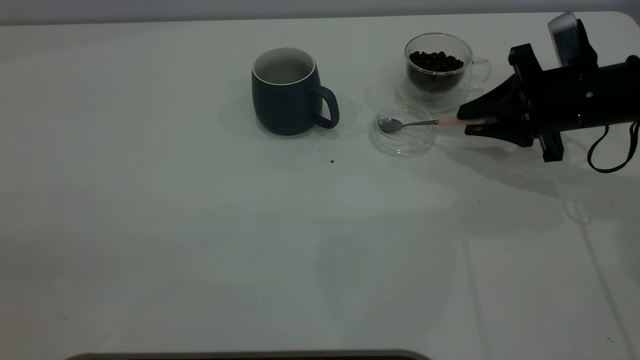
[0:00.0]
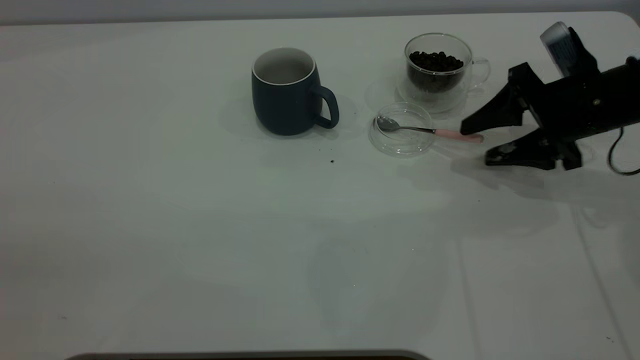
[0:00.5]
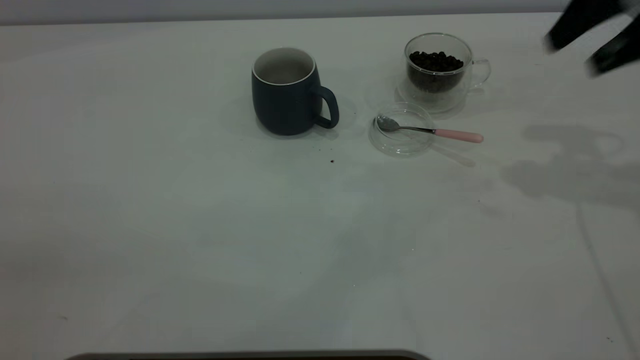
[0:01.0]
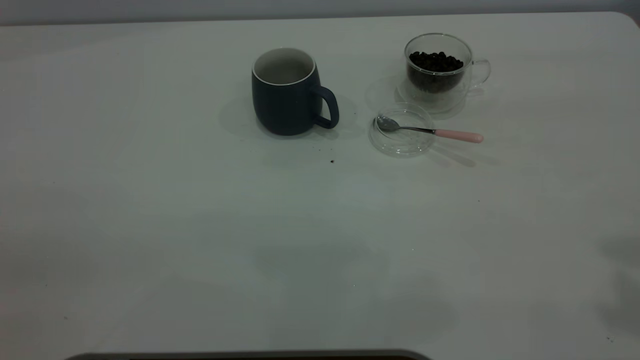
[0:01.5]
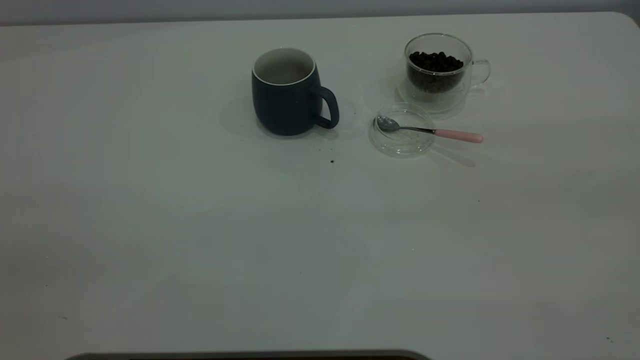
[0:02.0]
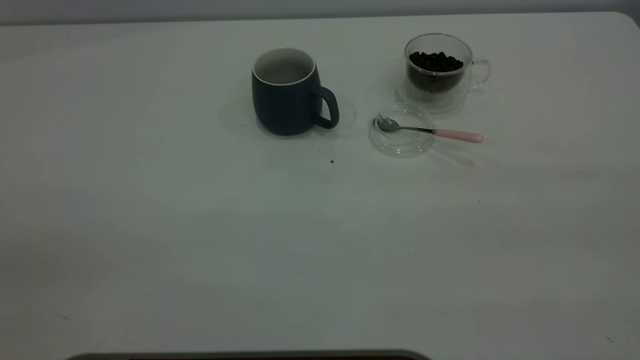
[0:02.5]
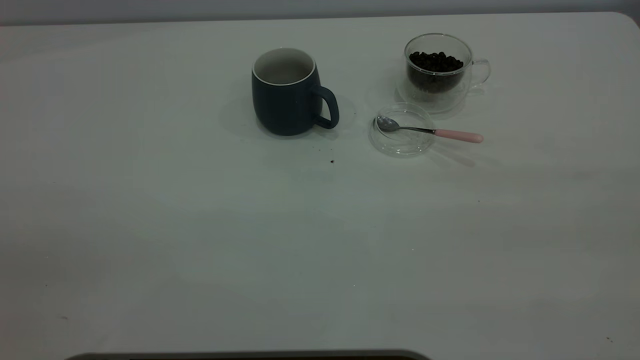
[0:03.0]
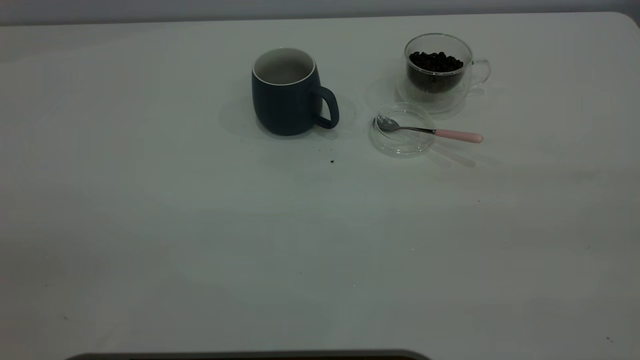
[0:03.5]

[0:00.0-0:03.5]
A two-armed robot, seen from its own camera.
Task of the whole recording: the left gripper place the grey cup in the center of the table, the right gripper take the pink spoon from the cup lid and scoop out the coffee beans from the coffee cup and put them into the grey cup, the right gripper put the spoon back into the cup lid.
0:00.0 to 0:02.0: The right gripper moves backward and upward, some 40 cm, and opens.

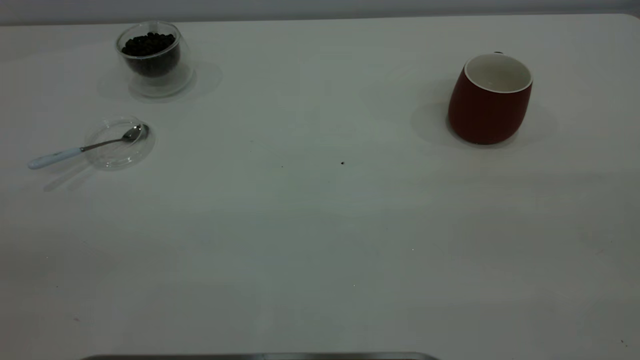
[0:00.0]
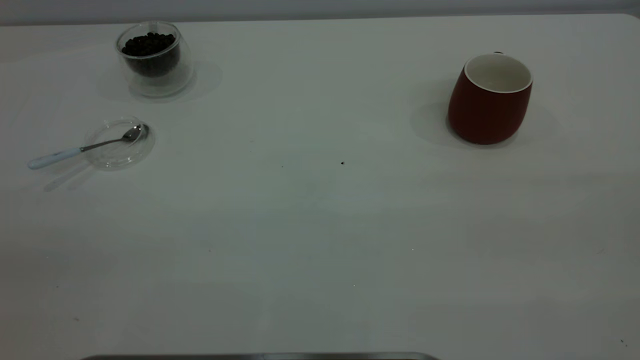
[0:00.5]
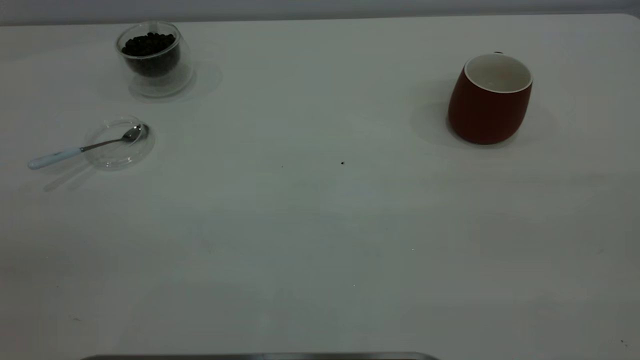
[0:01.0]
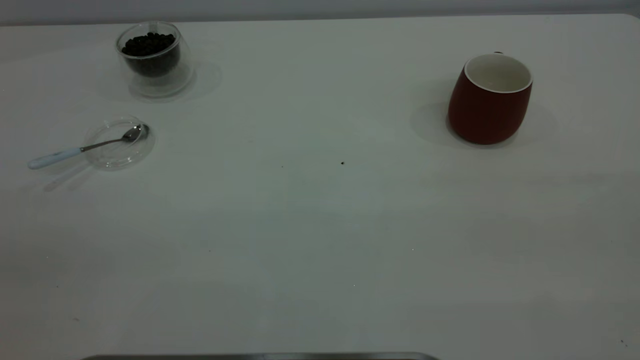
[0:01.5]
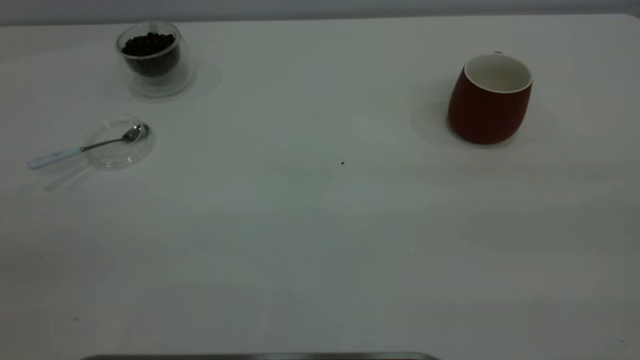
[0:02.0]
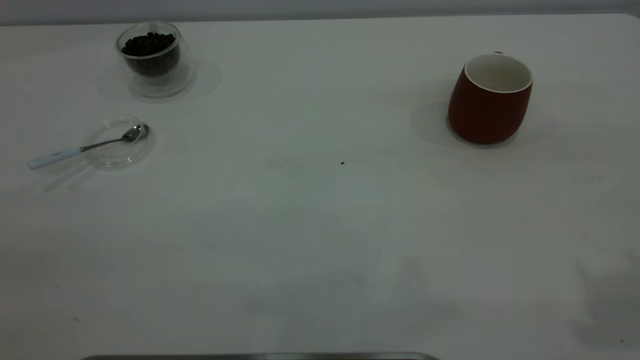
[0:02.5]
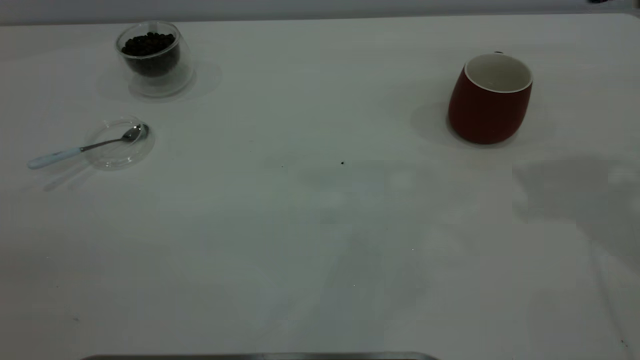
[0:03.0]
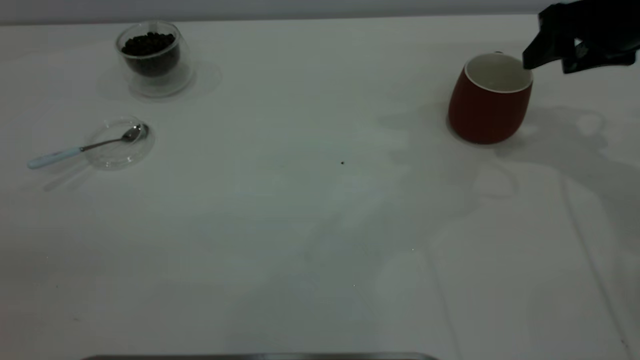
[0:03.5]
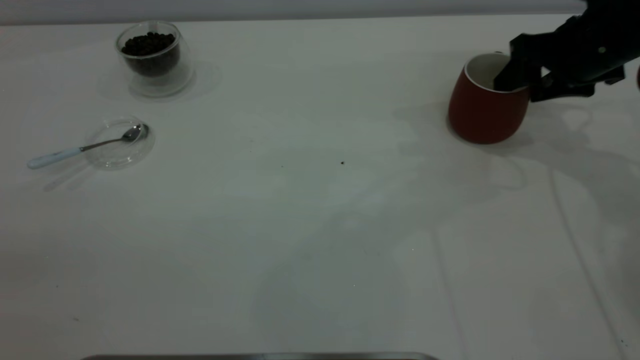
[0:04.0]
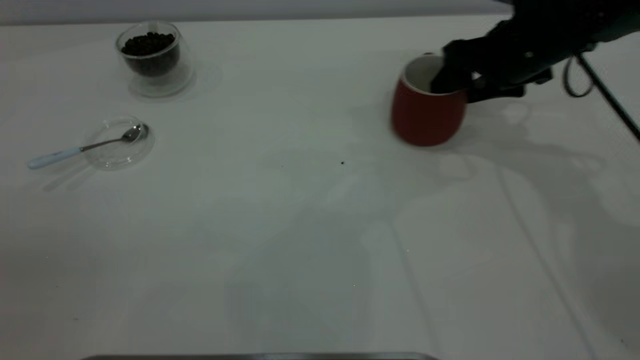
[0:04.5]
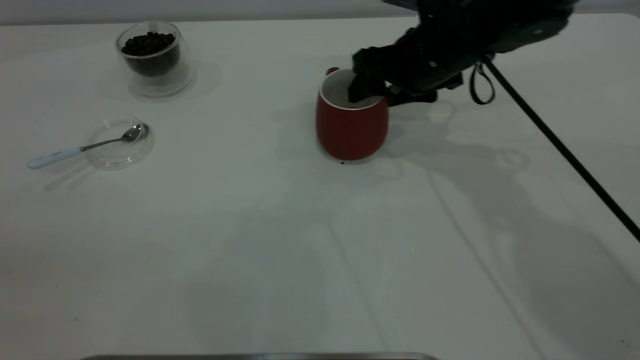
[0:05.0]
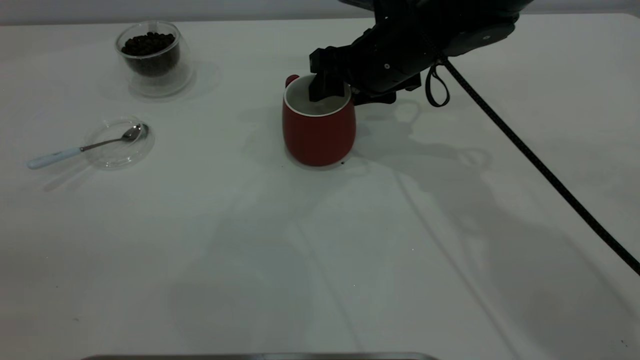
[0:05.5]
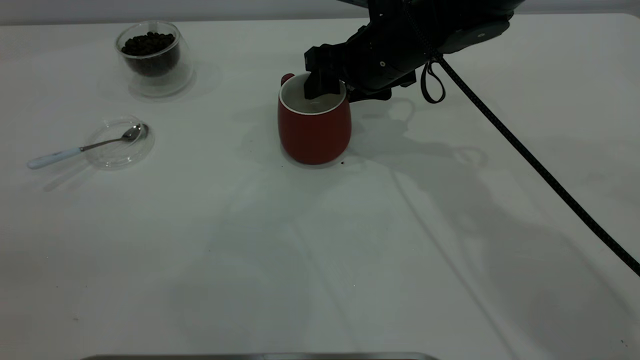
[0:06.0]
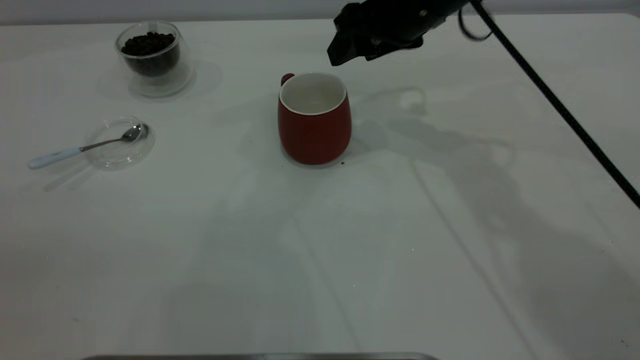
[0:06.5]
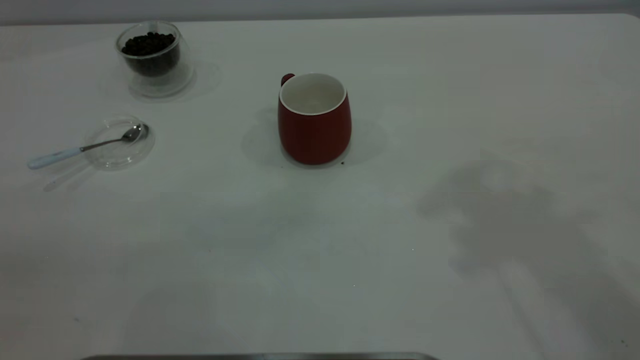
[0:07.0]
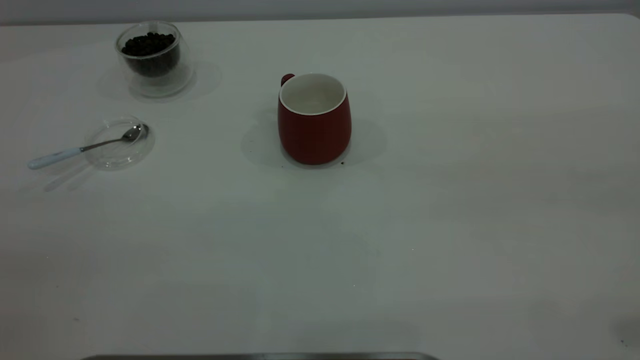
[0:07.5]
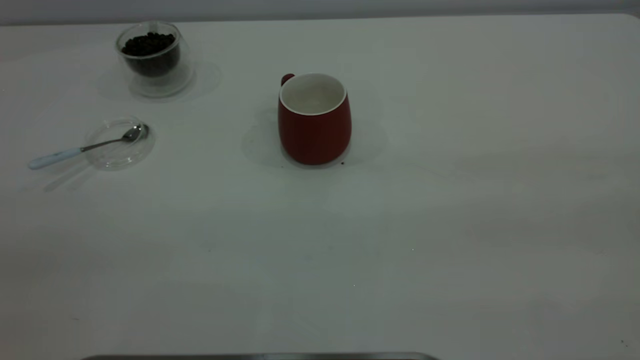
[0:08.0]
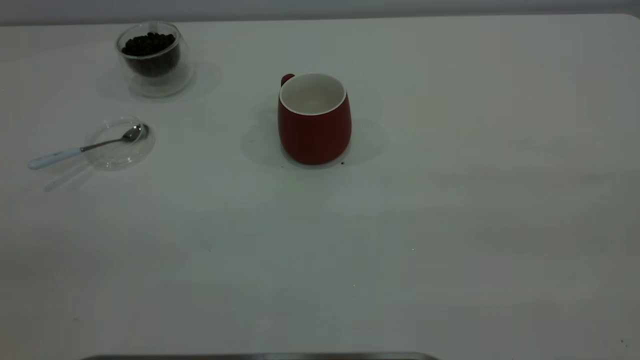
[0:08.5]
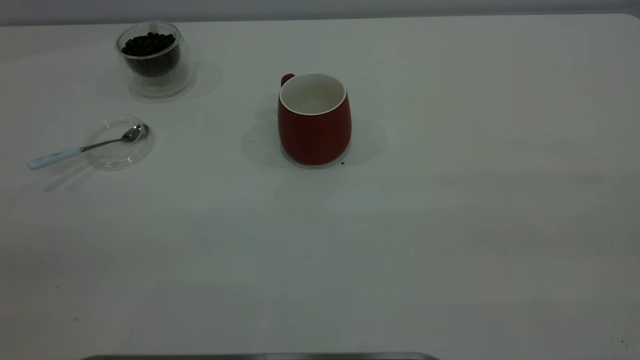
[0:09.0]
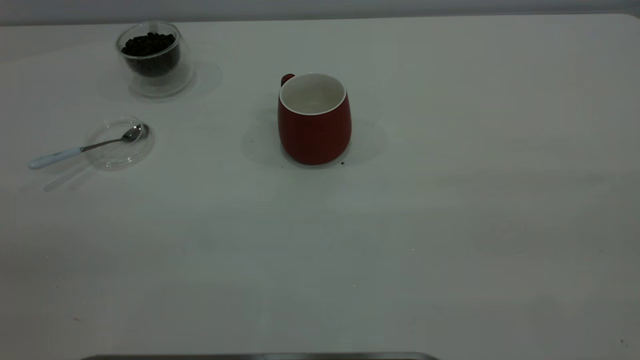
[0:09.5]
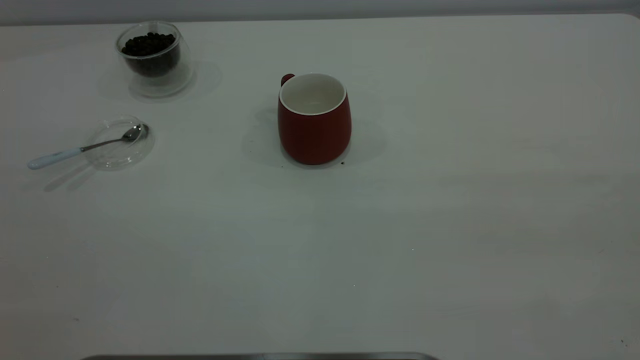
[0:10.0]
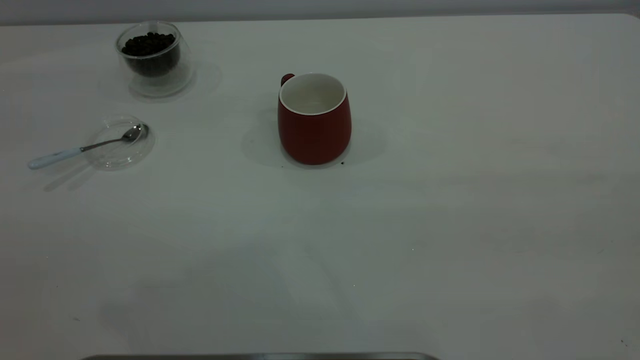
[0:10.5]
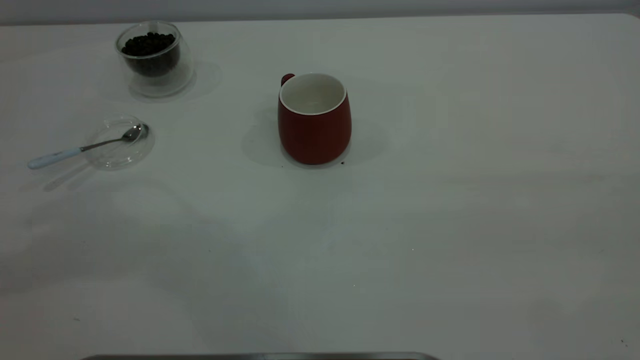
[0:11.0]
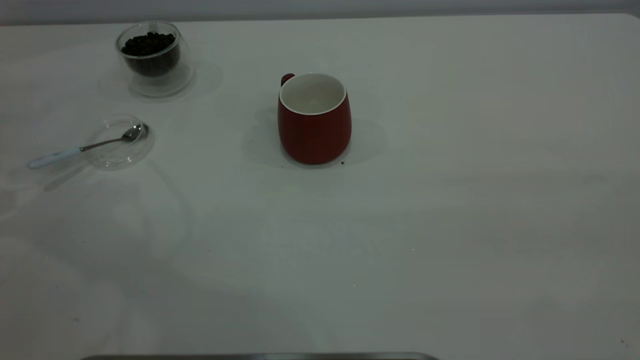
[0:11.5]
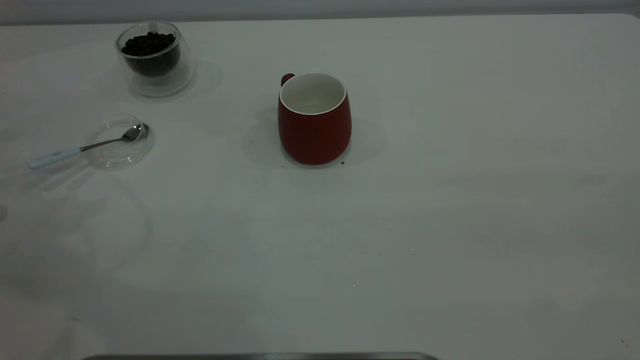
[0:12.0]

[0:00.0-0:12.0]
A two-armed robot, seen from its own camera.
Task of the whole recording: the right gripper place the red cup in the center of the table, the left gripper take the blue spoon from the cup lid and scoop out the coffee beans from the coffee cup and put them into the red cup, the left gripper put the spoon back into the cup lid.
Step, 0:00.0 to 0:06.0: Move the cup to the center of view.
0:02.0 to 0:04.0: The right gripper goes about 50 cm forward and downward.
0:04.0 to 0:06.0: The right gripper heads to the left, covering about 20 cm.
0:06.0 to 0:08.0: The right gripper moves backward, to the right and upward, some 50 cm.

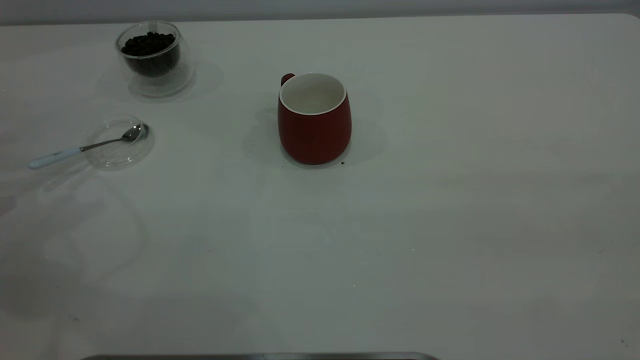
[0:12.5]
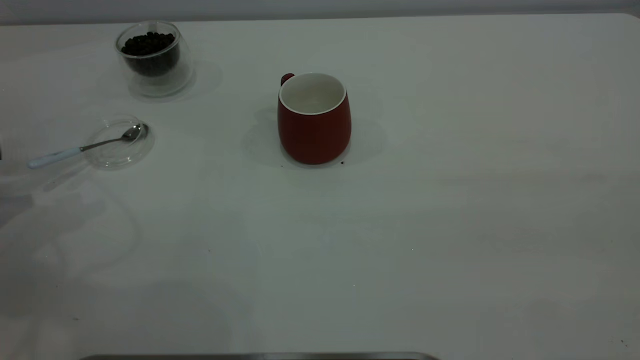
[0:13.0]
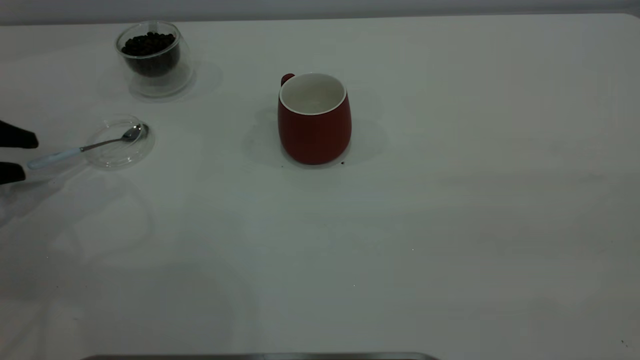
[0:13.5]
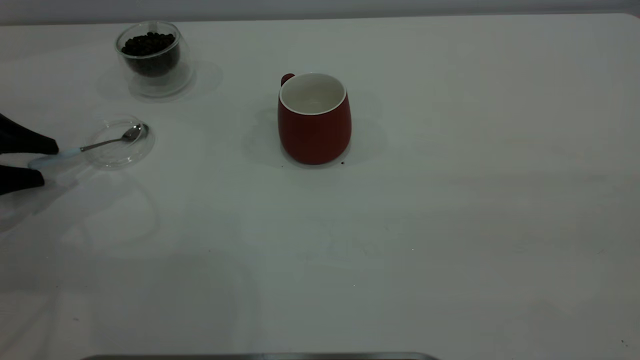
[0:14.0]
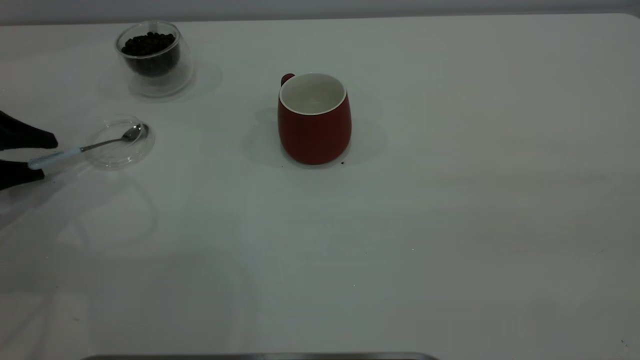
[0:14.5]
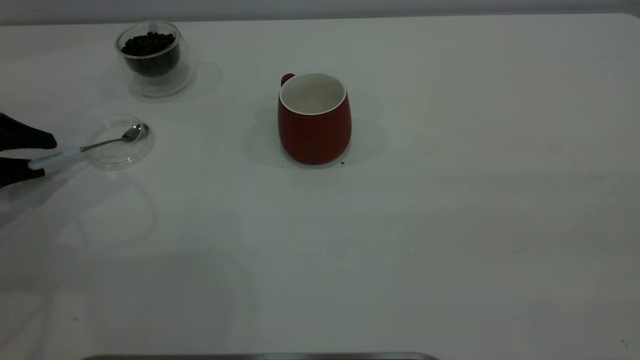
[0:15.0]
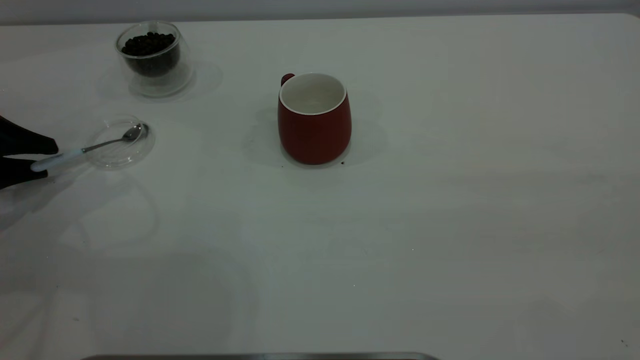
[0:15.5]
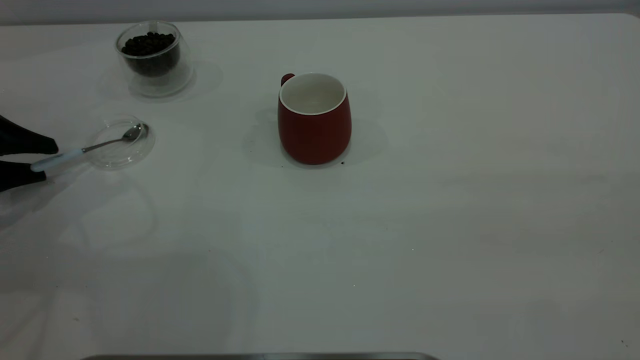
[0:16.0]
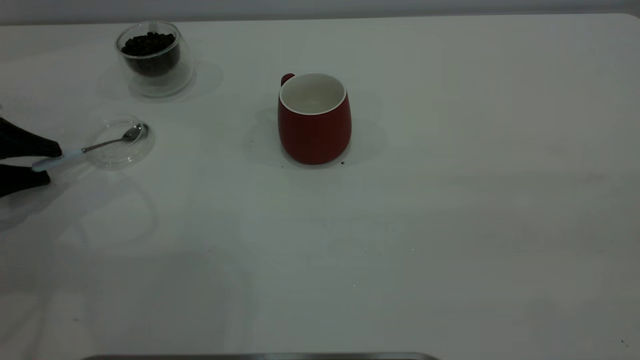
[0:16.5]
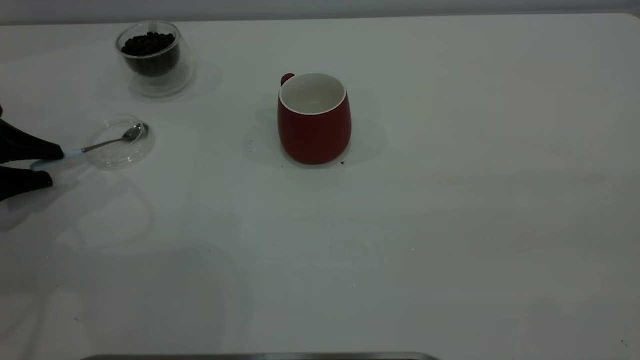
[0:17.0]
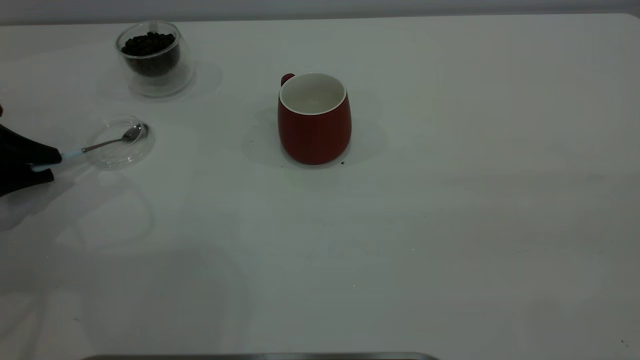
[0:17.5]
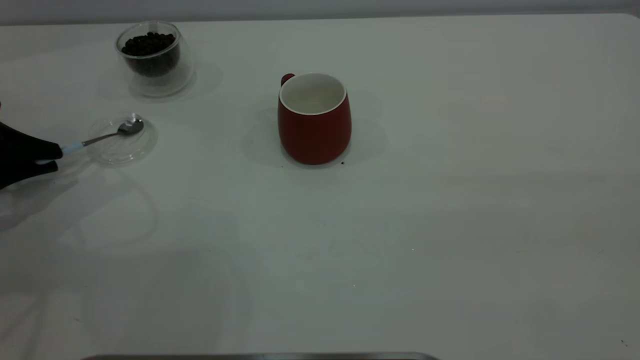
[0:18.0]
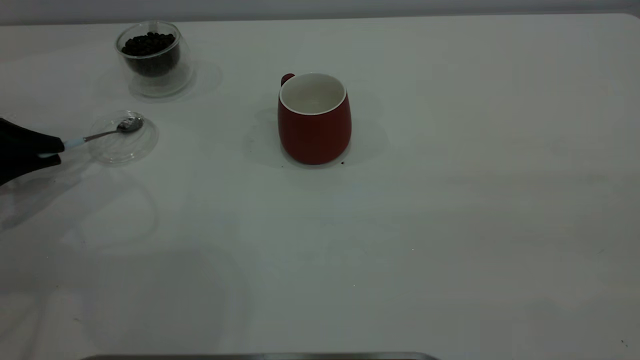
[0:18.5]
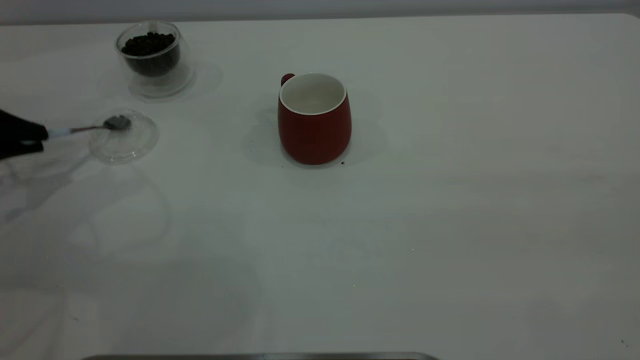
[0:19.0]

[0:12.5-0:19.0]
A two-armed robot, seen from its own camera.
Task of the whole recording: the right gripper place the red cup in the center of the table, the left gripper take the blue spoon from the cup lid and scoop out the coffee beans from the coffee cup and put them into the red cup, the left gripper put the spoon back into the cup lid.
0:12.5 to 0:14.5: The left gripper travels downward by approximately 5 cm.
0:14.5 to 0:17.0: Neither gripper changes place.
0:17.0 to 0:19.0: The left gripper closes its fingers.
